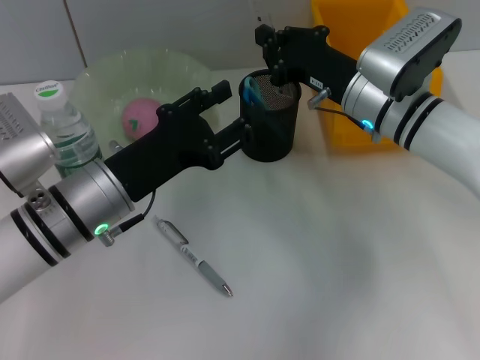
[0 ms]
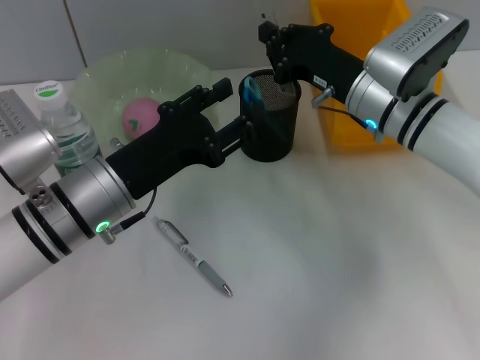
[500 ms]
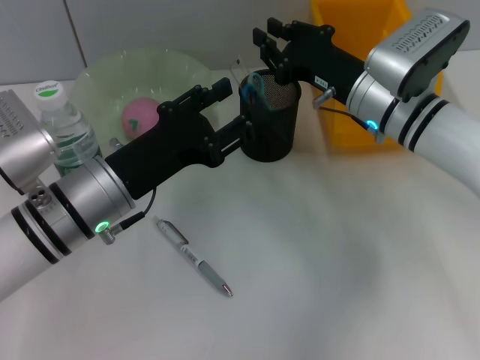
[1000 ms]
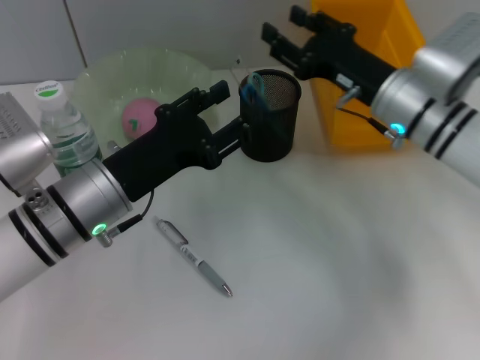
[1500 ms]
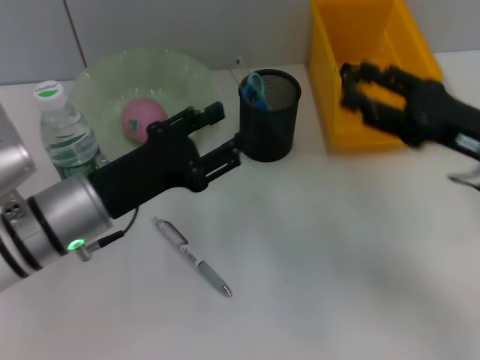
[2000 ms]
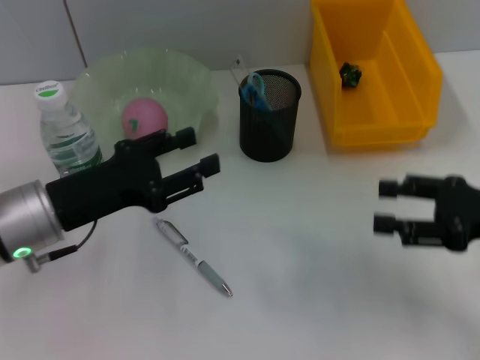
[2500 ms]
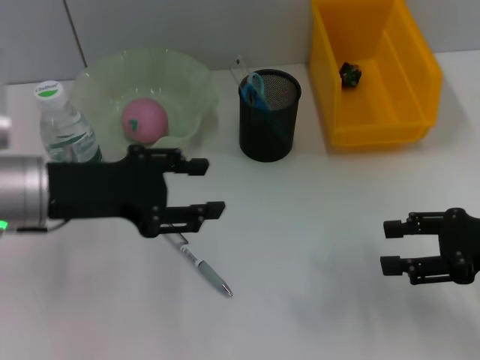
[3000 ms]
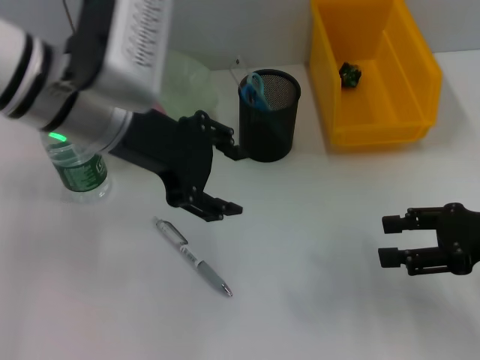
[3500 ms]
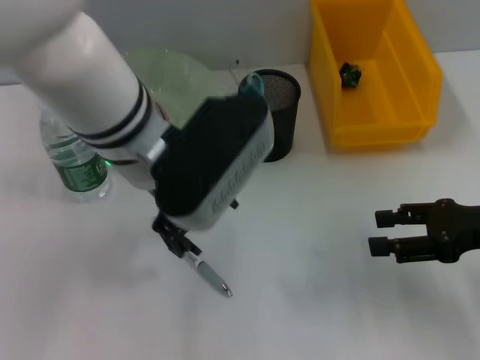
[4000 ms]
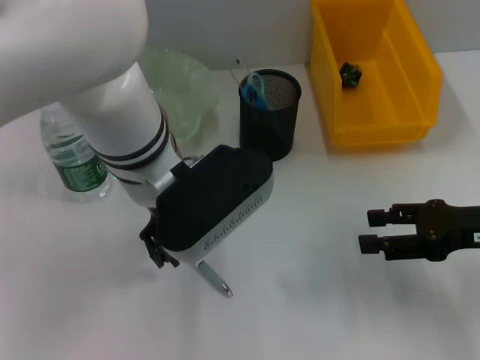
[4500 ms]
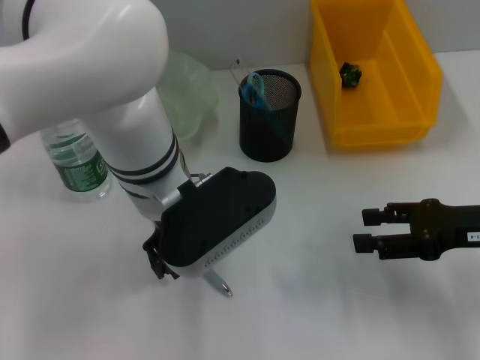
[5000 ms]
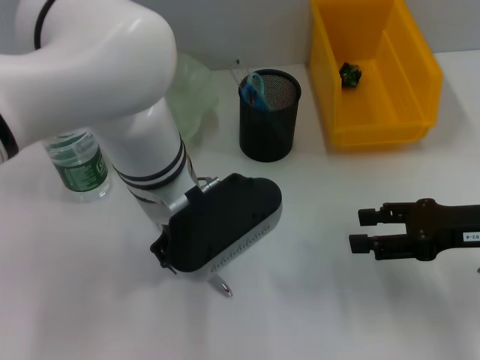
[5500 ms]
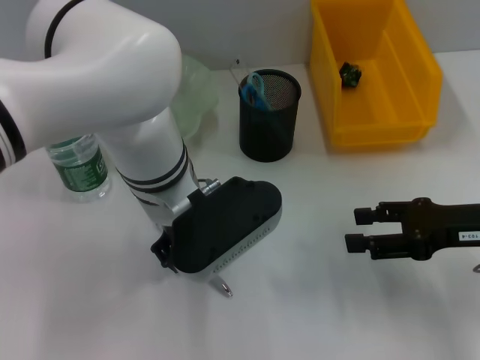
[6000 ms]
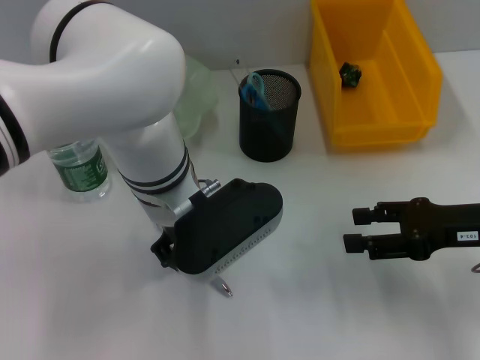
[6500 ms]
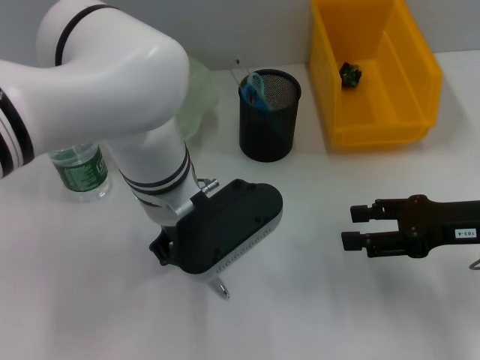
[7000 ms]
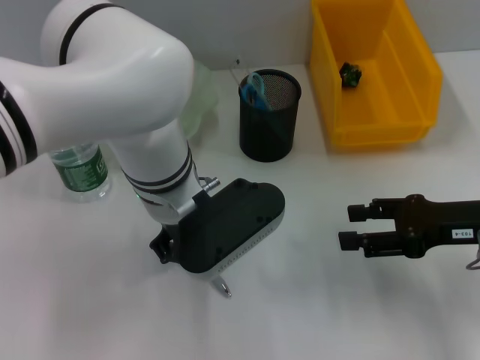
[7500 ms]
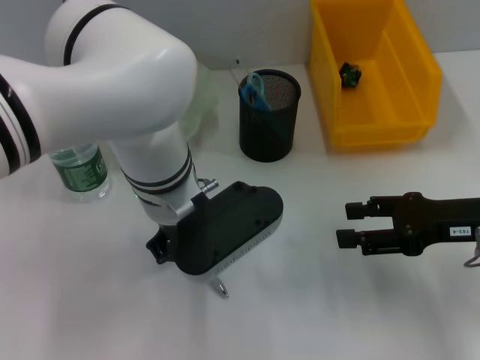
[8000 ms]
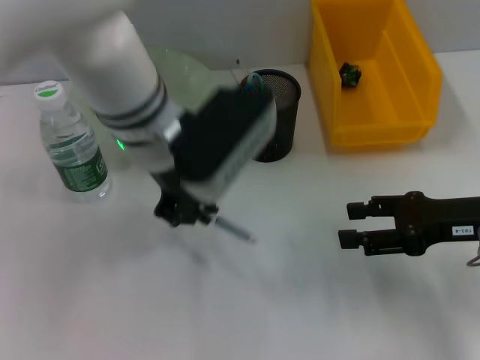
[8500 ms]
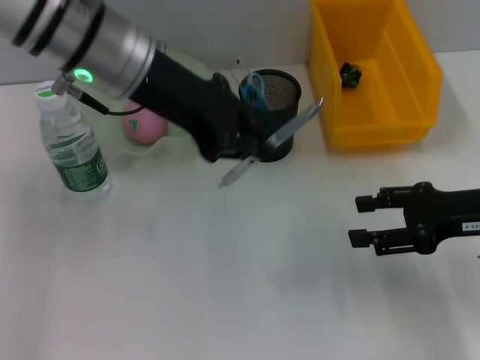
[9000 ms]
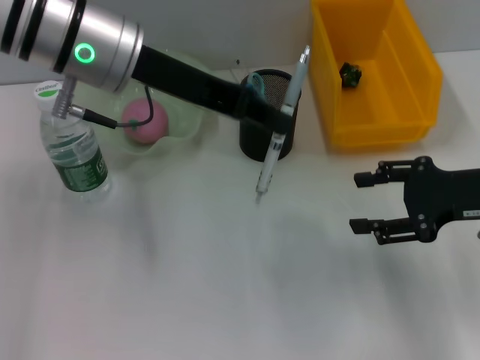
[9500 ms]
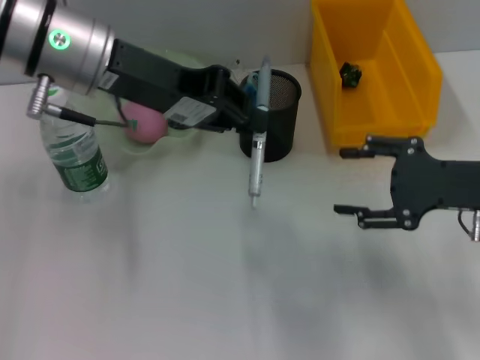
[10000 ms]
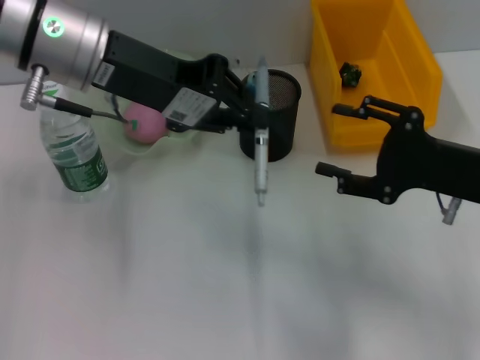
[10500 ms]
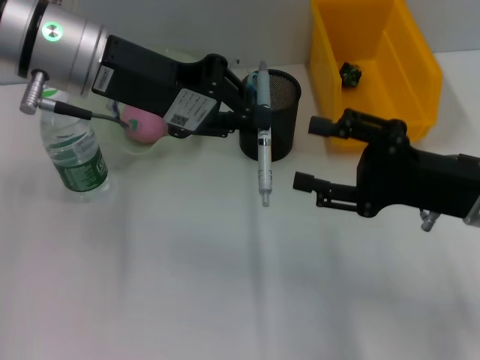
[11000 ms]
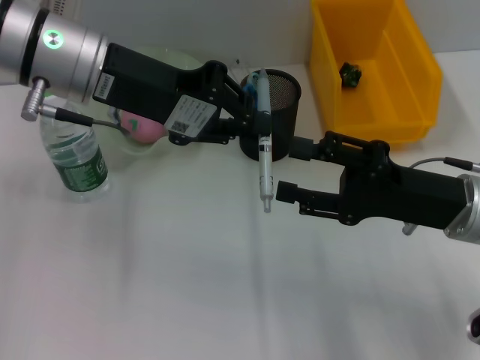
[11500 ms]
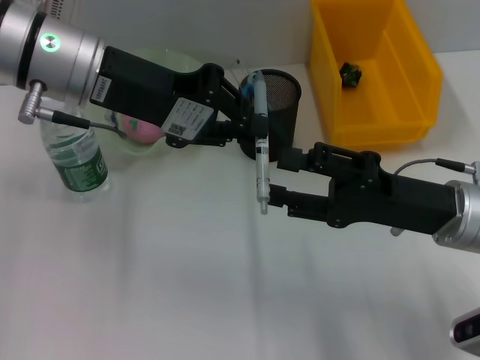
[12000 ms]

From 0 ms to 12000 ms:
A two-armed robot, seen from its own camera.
Step, from 2000 ms to 7500 ms: Grab the gray spring-action pen with the left hand.
From 0 ms to 2000 ms: The right gripper is displaced to the right and backward by roughly 15 cm, and opens.
From 2000 ms to 4000 ms: The left gripper travels upward and to the right by roughly 15 cm. Meanwhile the right gripper changes place by about 5 cm.
From 4000 ms to 6000 ms: The left gripper travels downward by about 5 cm, and closes.
From 6000 ms to 8000 ms: The left gripper closes its fingers.
From 8000 ms to 10000 ms: The left gripper goes roughly 15 cm upward and to the left.
From 10000 ms to 12000 ms: The right gripper is displaced to the left by about 5 cm.

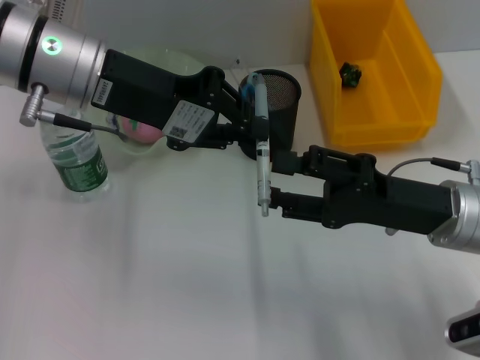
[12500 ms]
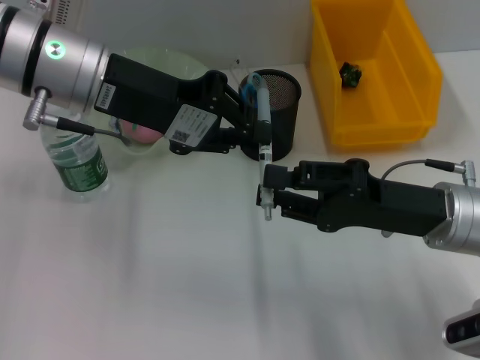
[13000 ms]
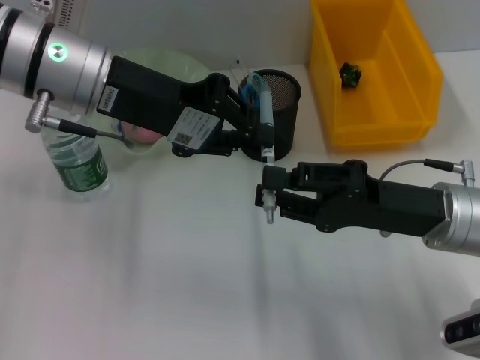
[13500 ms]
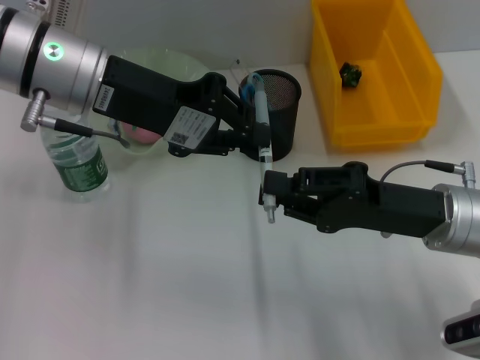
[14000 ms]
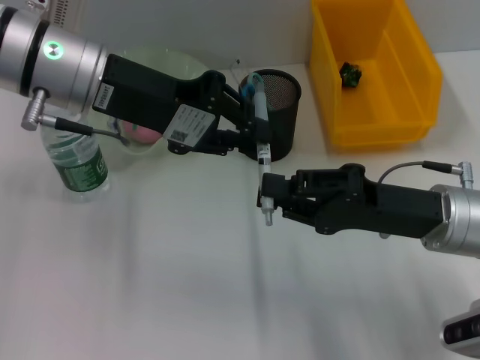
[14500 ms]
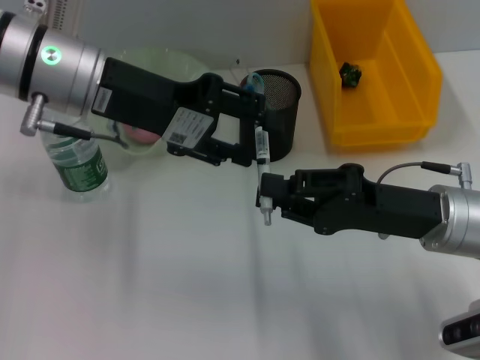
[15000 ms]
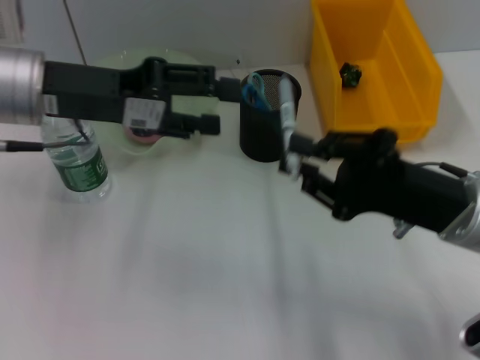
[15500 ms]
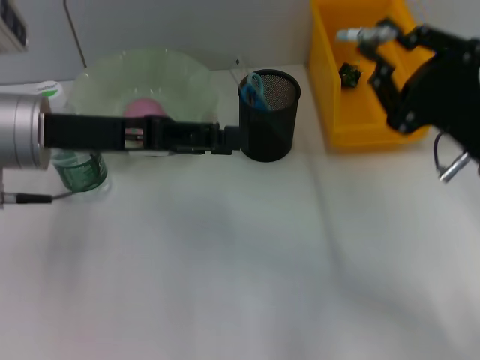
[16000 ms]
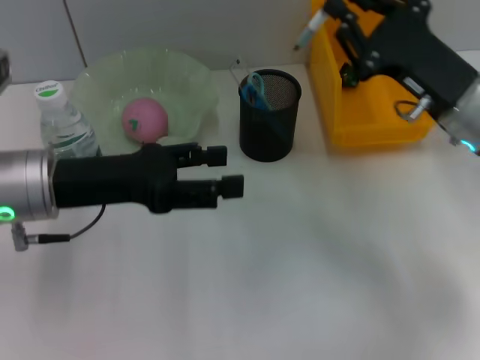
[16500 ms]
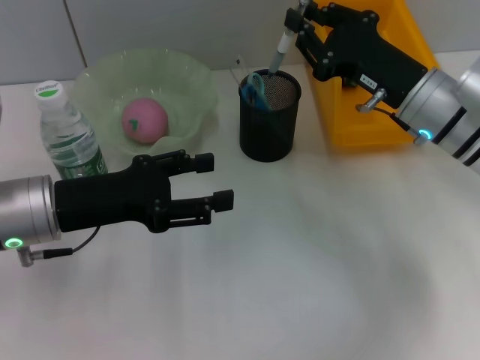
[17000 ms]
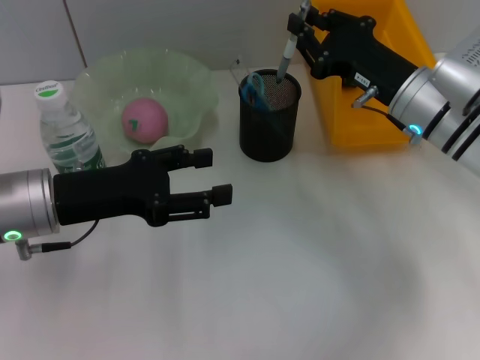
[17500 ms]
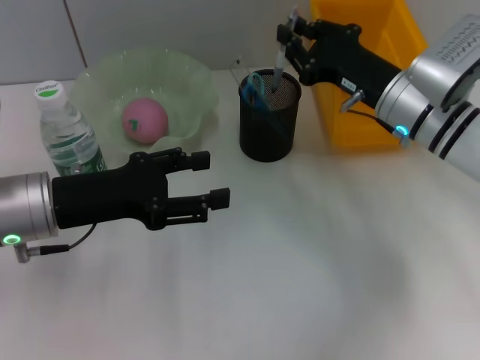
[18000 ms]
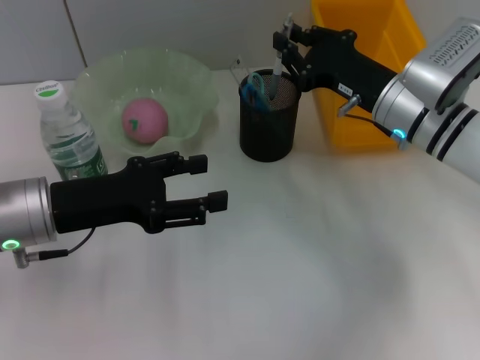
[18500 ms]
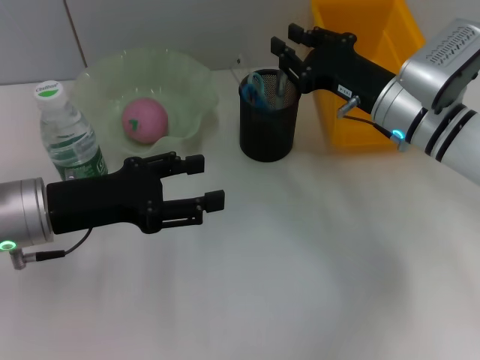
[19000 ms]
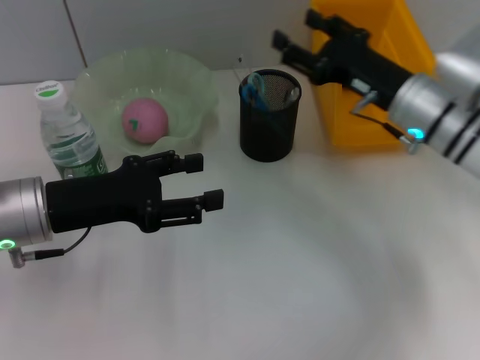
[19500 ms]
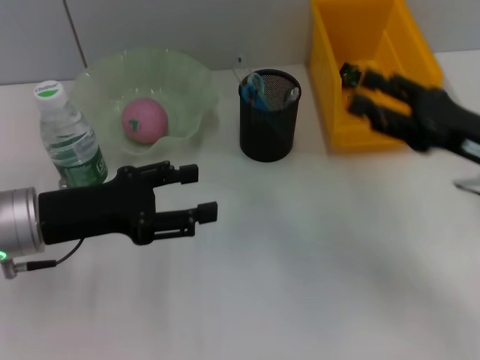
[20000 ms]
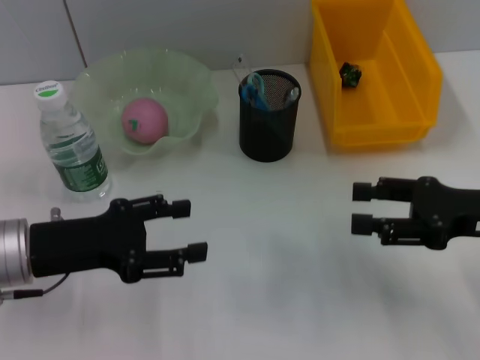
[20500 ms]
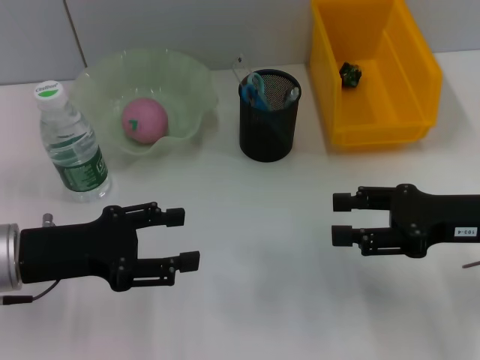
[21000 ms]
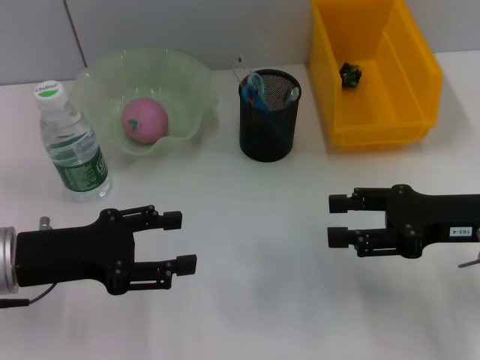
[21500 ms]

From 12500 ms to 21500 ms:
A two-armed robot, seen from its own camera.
Step, from 12500 ms to 15000 ms: Pass the gray spring-action pen from the left hand to the right hand.
Step, from 15500 ms to 19500 ms: Place the gray spring-action pen into the pen holder with the right hand.
From 12500 ms to 14500 ms: The right gripper closes its fingers.
From 14500 ms to 17000 ms: The right gripper goes approximately 10 cm forward, while the left gripper moves downward, backward and to the left, roughly 15 cm, and opens.
From 17000 ms to 19500 ms: The right gripper opens.
From 19500 ms to 21500 ms: The right gripper travels backward and to the right by some 10 cm.

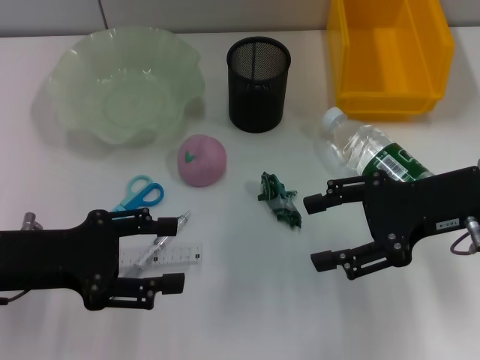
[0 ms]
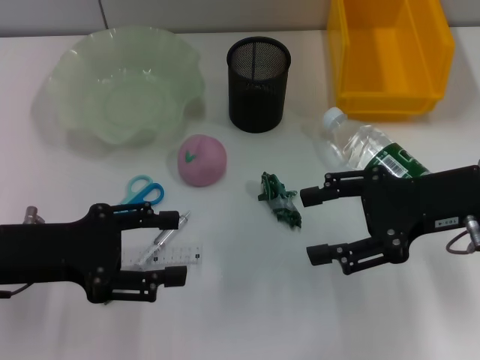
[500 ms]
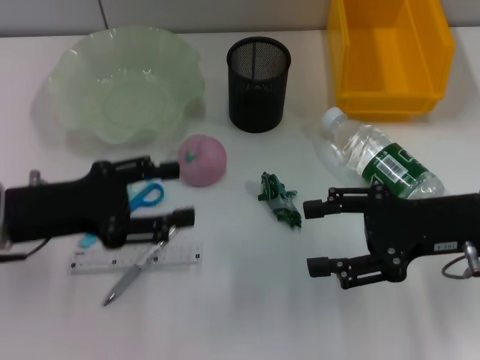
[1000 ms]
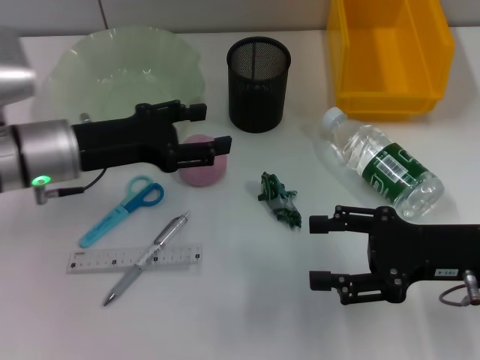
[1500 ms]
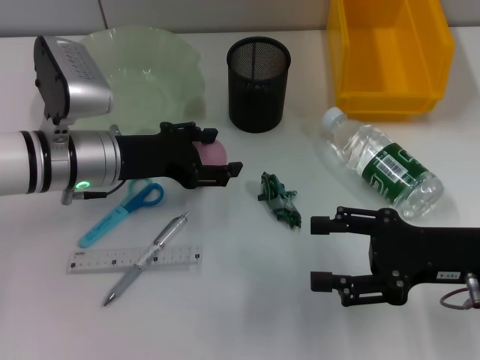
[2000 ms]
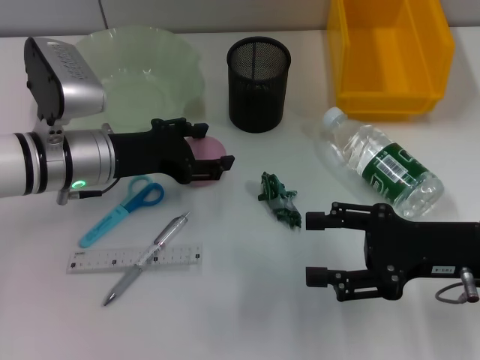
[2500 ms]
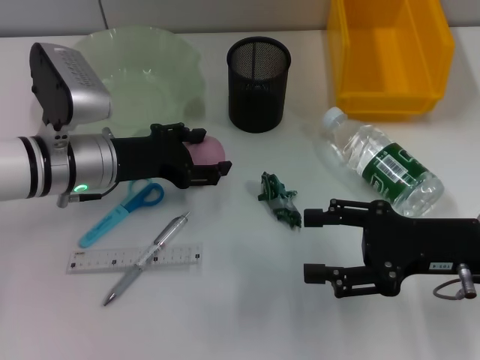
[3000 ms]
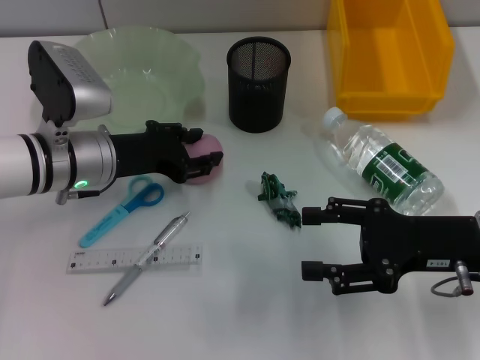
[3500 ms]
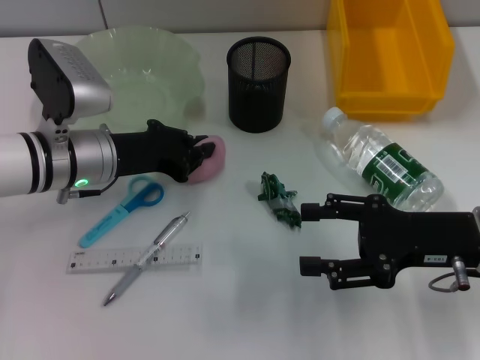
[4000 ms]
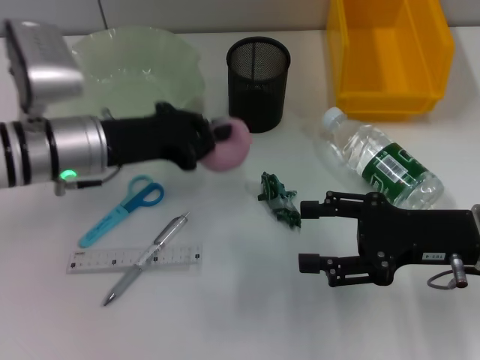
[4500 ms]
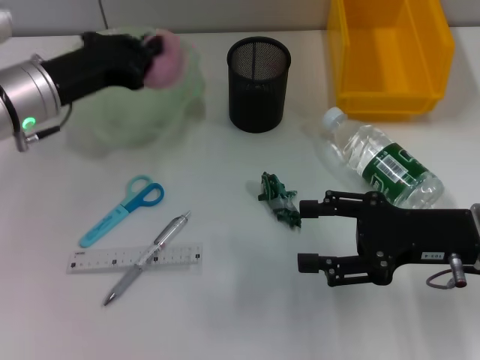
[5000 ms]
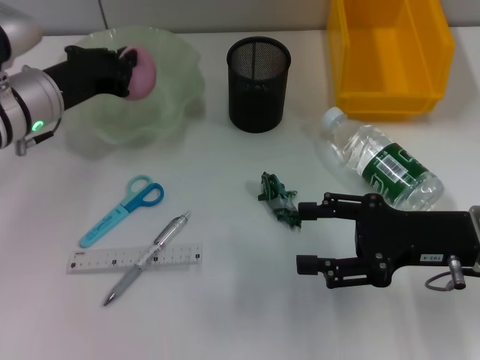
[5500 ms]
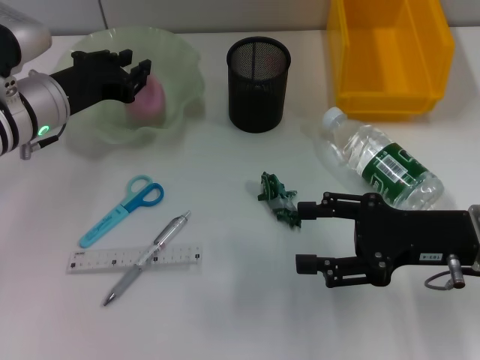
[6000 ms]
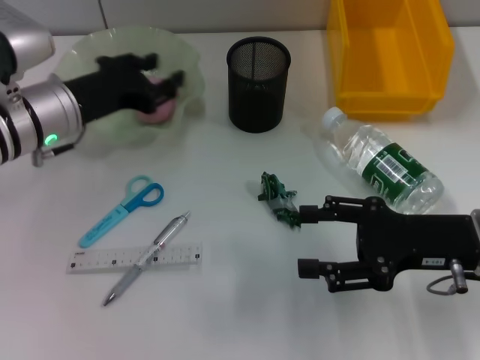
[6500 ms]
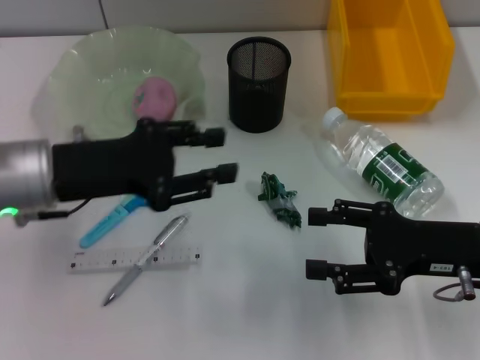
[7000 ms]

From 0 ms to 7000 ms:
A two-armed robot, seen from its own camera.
Step, from 0 ms to 3500 ms: Grab the peach with the left hand.
Step, from 4000 ms to 6500 ms: Place the peach into the fruit bowl with the left hand.
From 0 ms to 2000 ms: The left gripper shifts approximately 15 cm forward and to the right; the right gripper shifts some 5 cm downward.
From 2000 ms to 3500 ms: The grippers move only a little.
From 3500 ms to 5000 ms: The left gripper travels upward by about 5 cm, and closes.
From 5000 ms to 7000 ms: The left gripper shifts some 5 cm backward, and opens its fingers.
